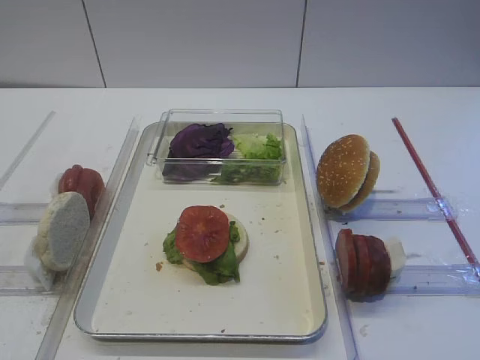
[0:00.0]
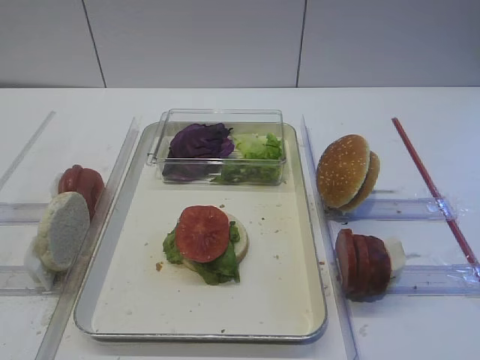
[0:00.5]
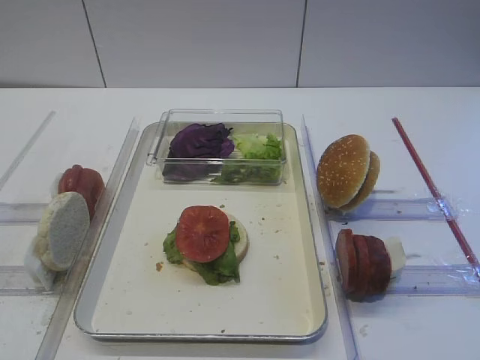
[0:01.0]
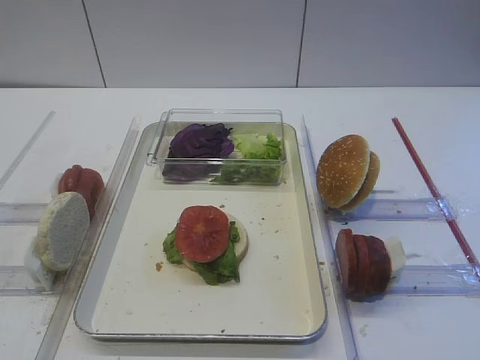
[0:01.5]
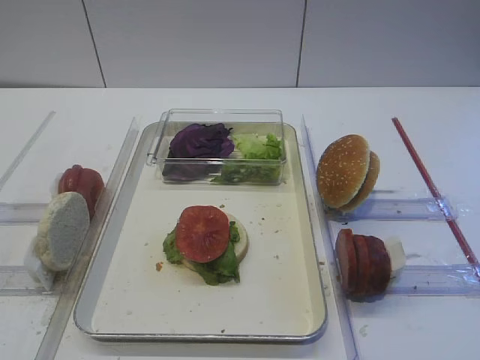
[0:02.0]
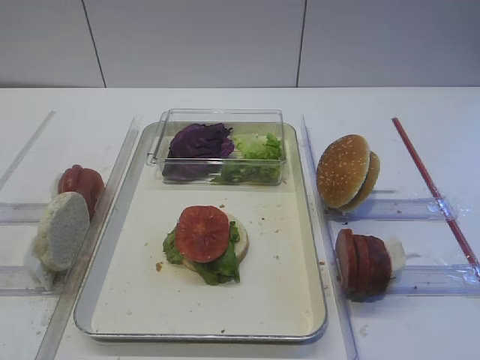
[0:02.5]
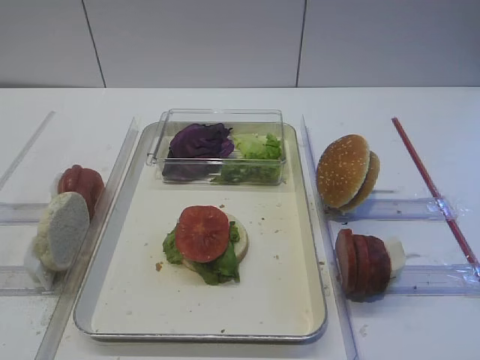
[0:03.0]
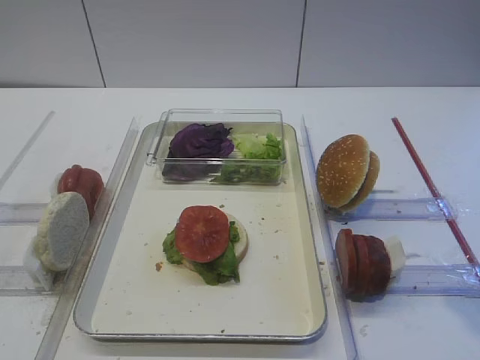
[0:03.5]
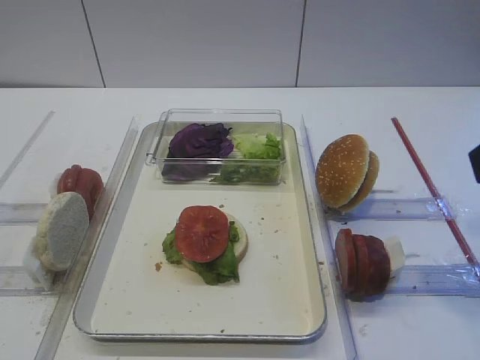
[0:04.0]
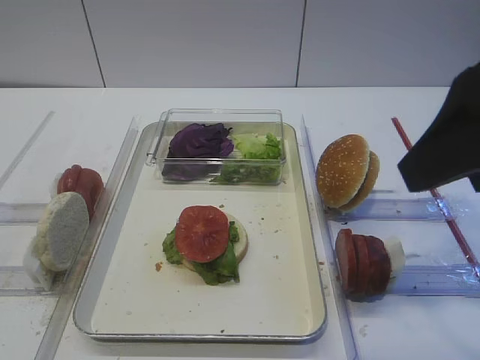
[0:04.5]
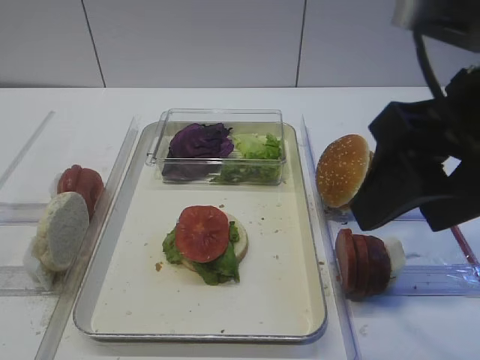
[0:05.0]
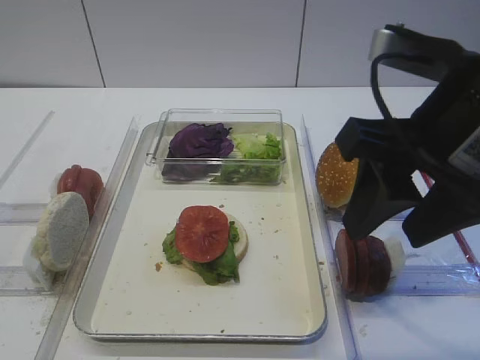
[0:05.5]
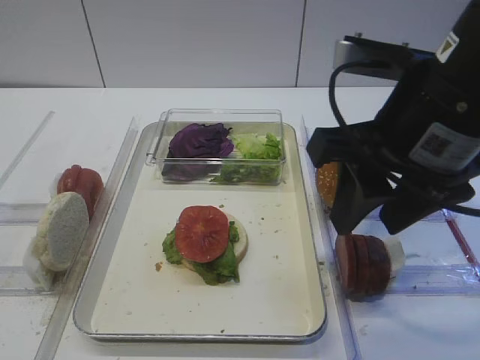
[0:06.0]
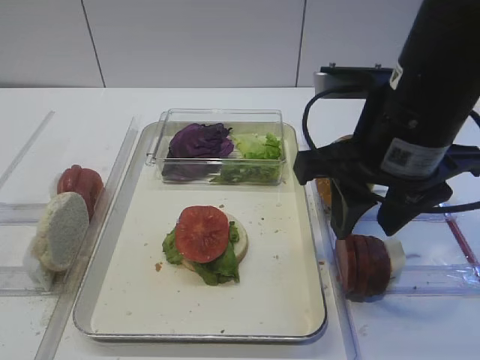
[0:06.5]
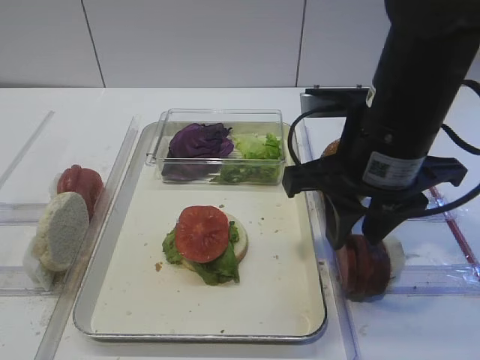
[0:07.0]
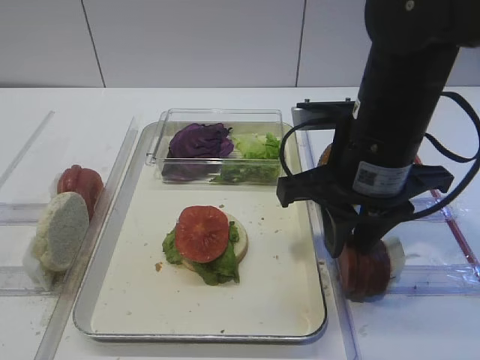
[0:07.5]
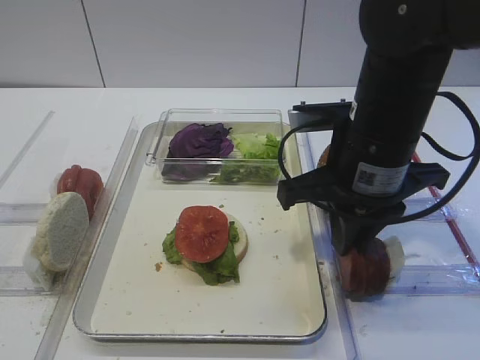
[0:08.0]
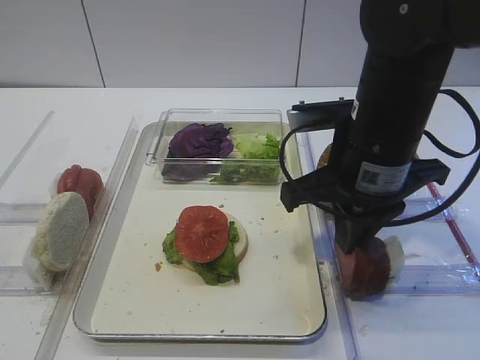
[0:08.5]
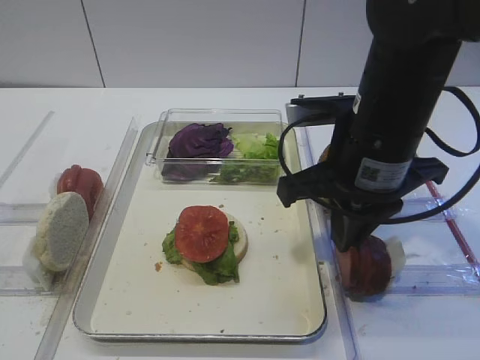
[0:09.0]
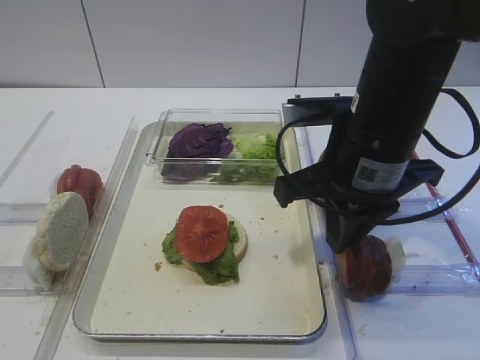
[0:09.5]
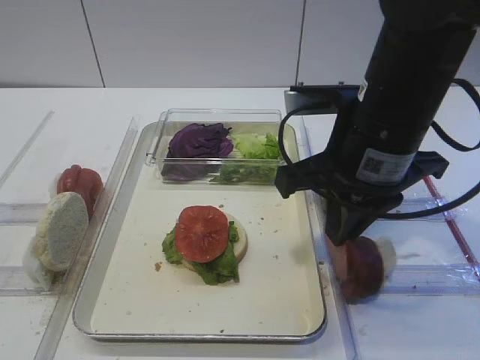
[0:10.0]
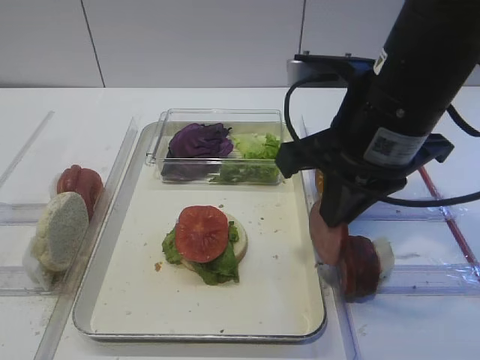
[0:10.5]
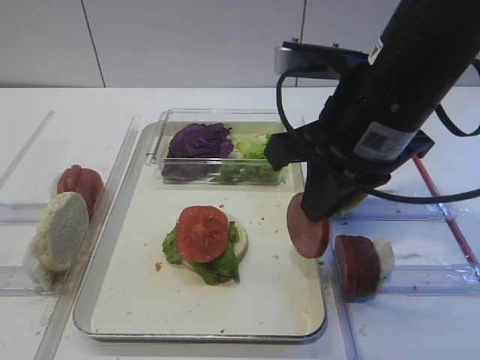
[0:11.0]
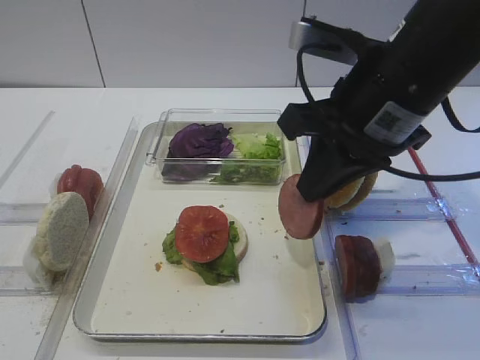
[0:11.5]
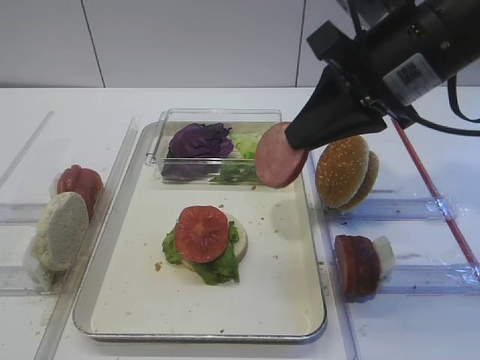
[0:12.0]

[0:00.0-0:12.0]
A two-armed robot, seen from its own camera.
Step, 0:00.0 to 0:10.0: Pick up the cutlet with the right gripper.
0:02.0 to 0:04.0: The right gripper is displaced forward and upward by some 15 cm.
0:04.0 to 0:06.0: The right gripper travels to the left, forward and downward by roughly 15 cm.
0:06.0 to 0:08.0: The right gripper moves downward, about 5 cm, and closes its fingers.
0:08.0 to 0:10.0: The grippers move only a little.
0:10.0 to 0:12.0: The right gripper shifts roughly 5 cm upward.

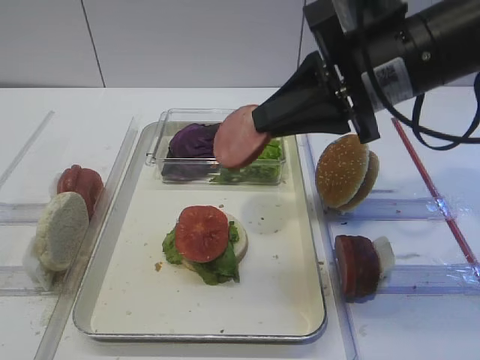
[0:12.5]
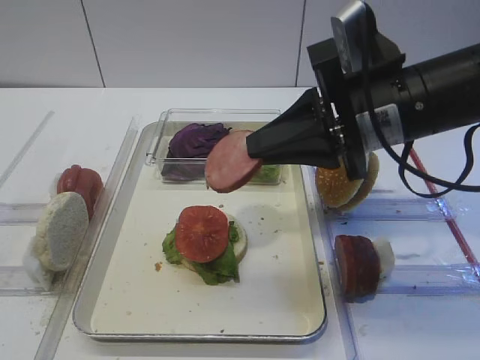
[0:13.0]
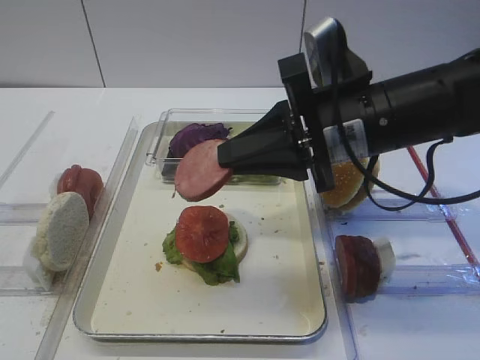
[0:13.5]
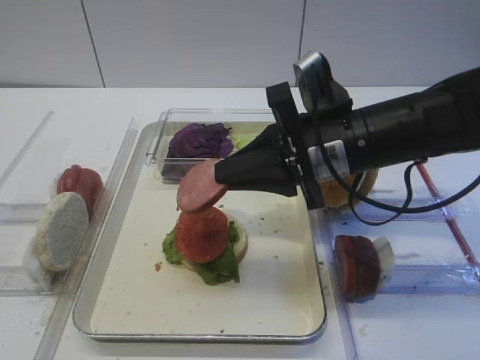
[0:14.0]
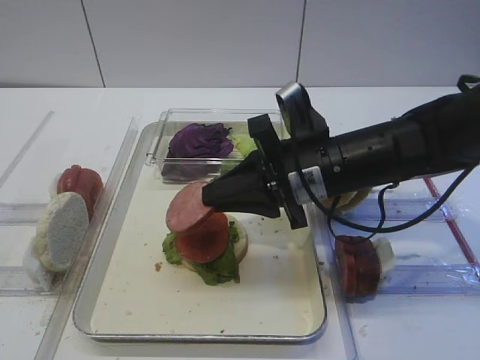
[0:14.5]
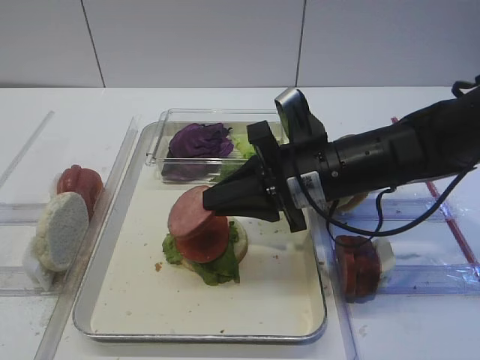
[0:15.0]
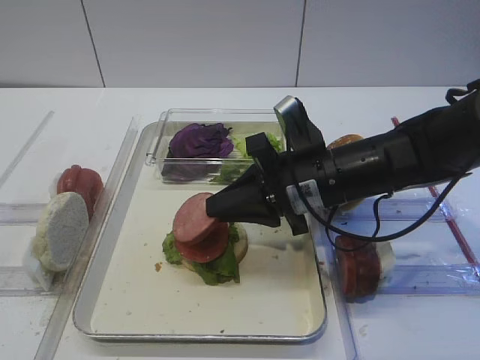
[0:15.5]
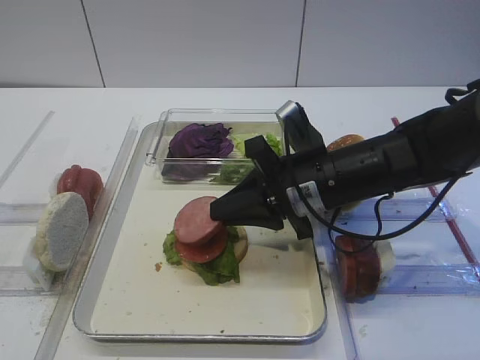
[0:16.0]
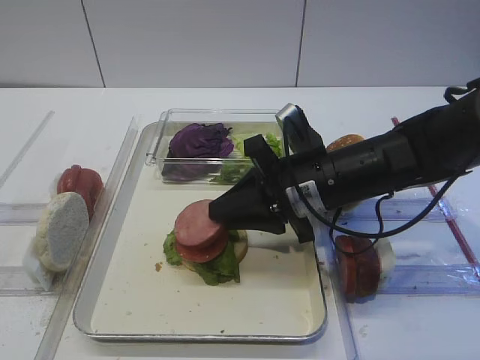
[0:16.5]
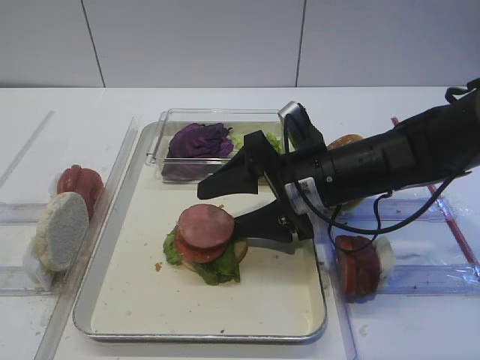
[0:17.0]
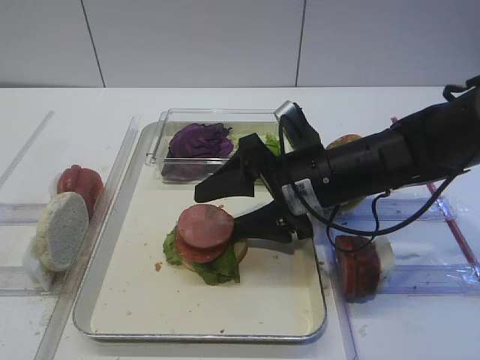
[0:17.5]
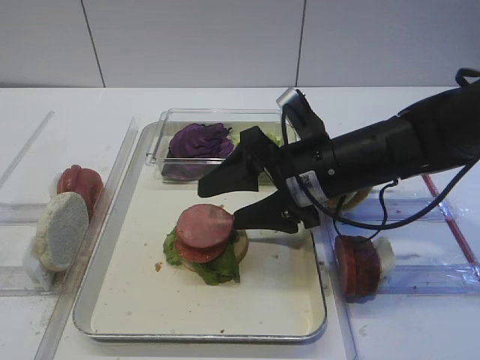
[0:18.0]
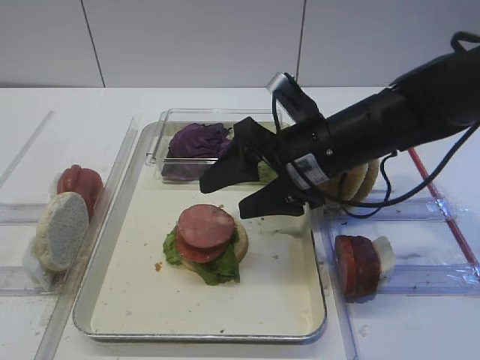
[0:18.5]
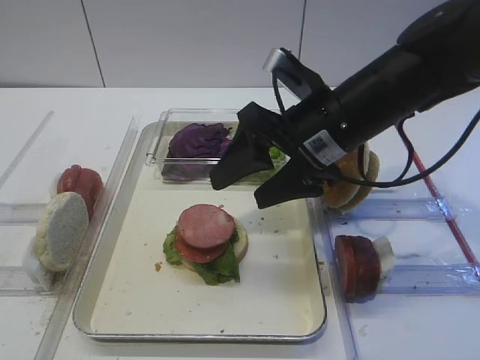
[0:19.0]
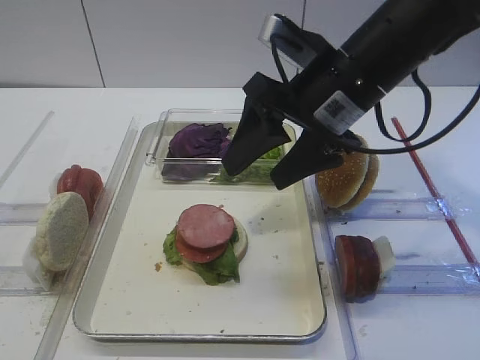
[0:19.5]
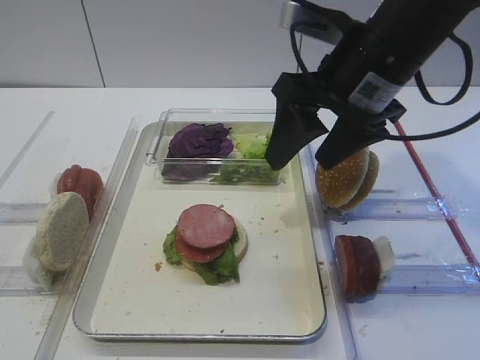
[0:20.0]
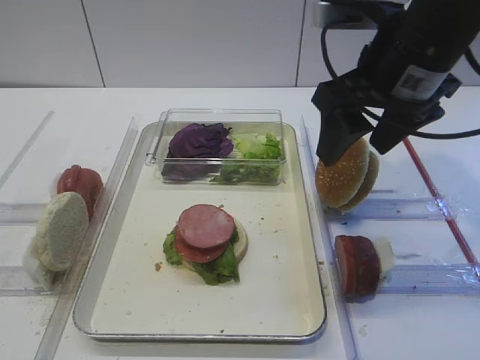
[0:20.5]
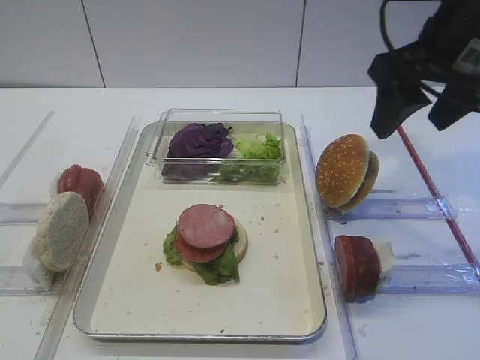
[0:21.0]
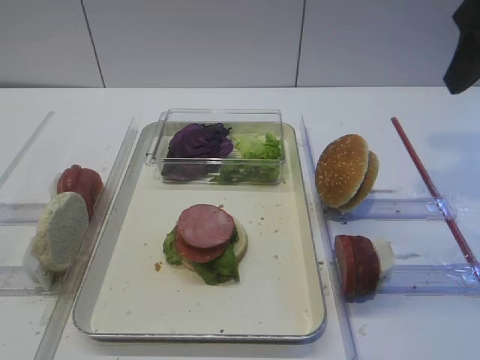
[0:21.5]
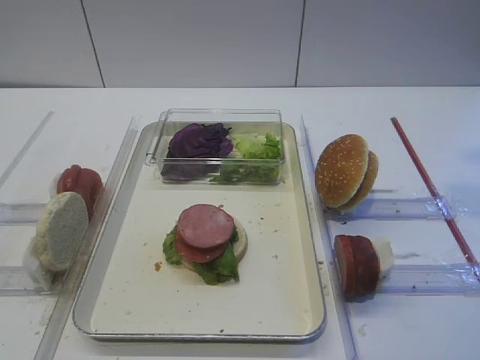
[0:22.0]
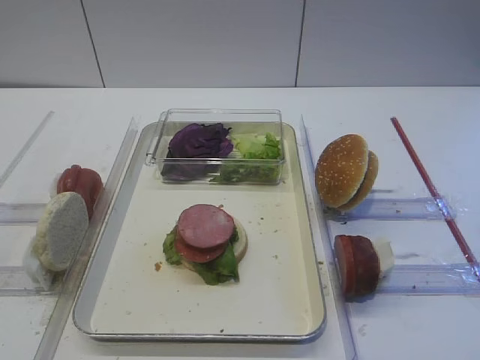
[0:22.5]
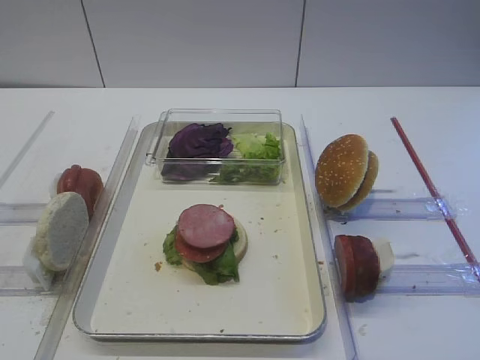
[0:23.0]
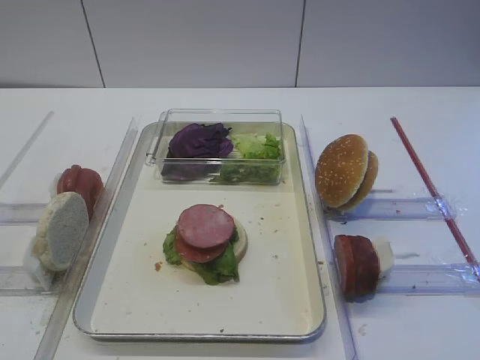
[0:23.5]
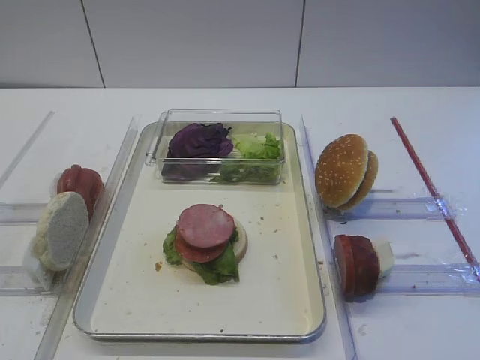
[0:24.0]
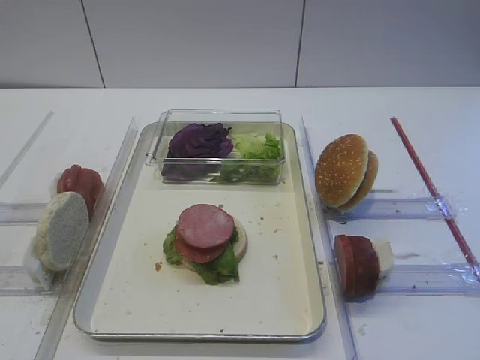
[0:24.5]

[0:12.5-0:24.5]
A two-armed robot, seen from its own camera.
Step, 0:12.5 to 0:18.0: Place the cutlet on the tomato slice with the right gripper.
0:12.5 to 0:14.5: The right gripper moves downward, about 10 cm.
0:14.5 to 0:16.5: There are only small adjustments of the grippers.
0:16.5 to 0:18.5: The right gripper opens.
0:18.5 to 0:20.5: The right gripper shifts some 10 cm upward and to the right.
0:20.5 to 0:22.5: The right gripper is displaced backward, to the right and upward by some 20 cm.

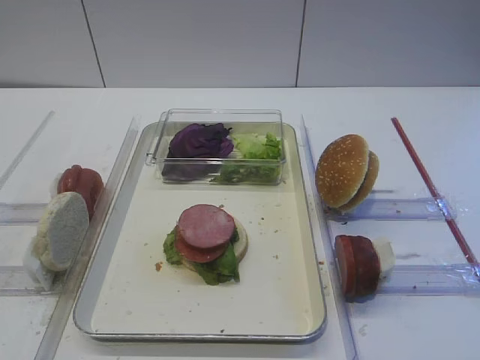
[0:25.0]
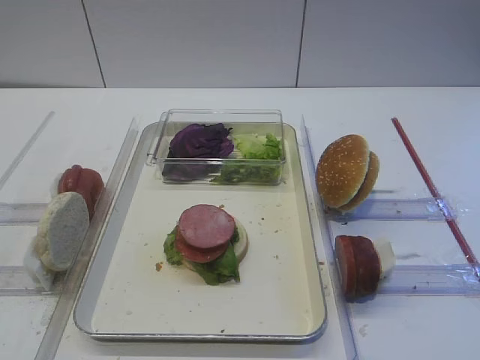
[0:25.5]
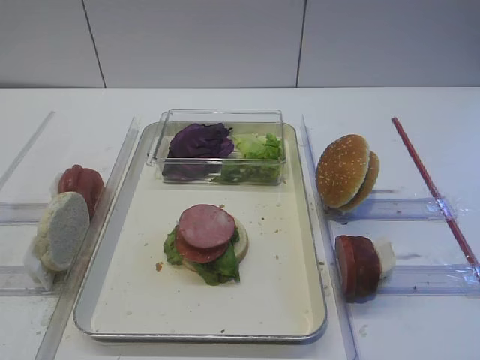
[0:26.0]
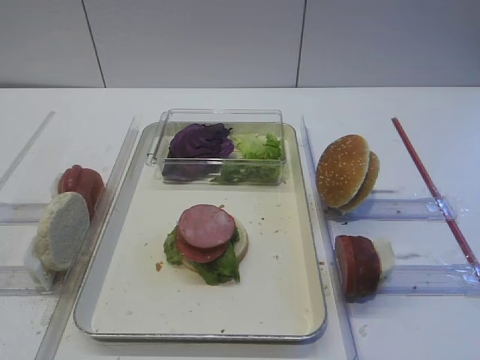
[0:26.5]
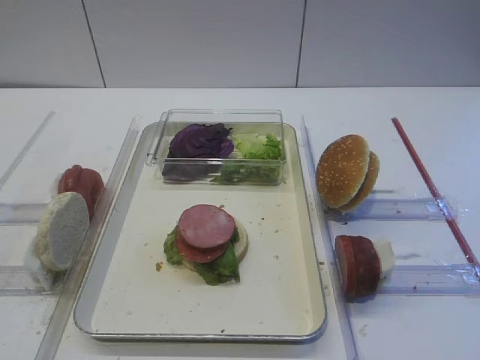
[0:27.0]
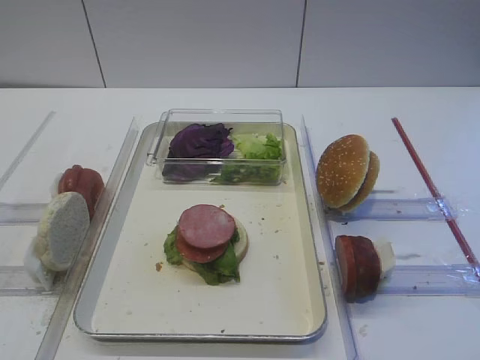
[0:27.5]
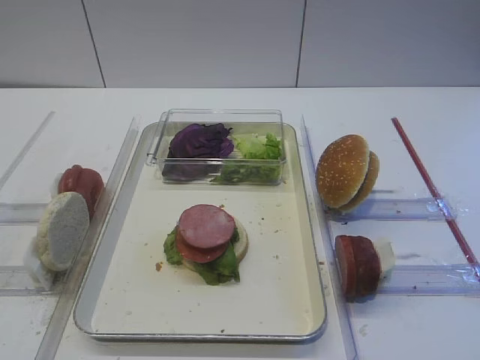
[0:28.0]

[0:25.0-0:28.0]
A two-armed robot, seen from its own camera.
0:25.0 to 0:28.0: The two grippers keep their place.
